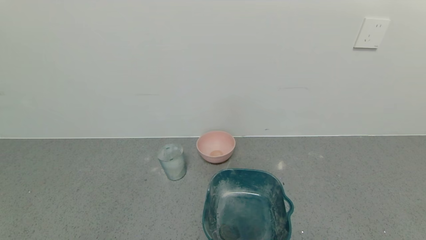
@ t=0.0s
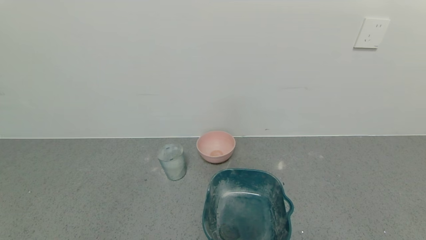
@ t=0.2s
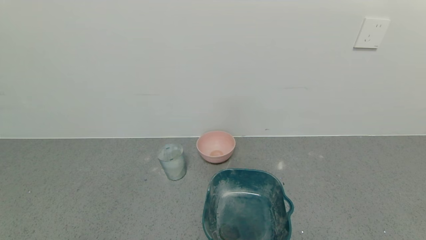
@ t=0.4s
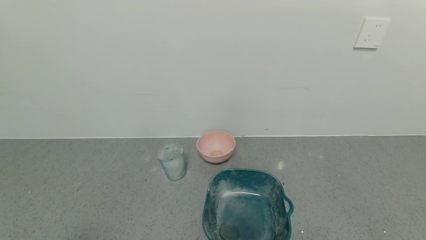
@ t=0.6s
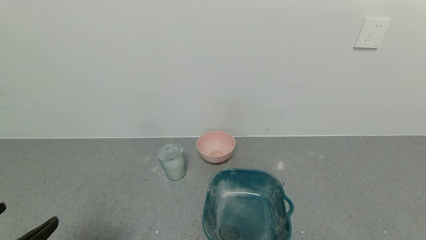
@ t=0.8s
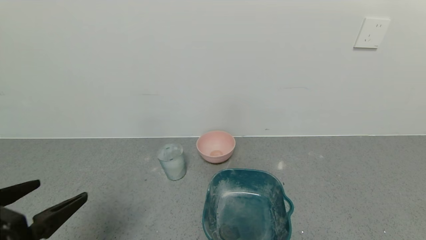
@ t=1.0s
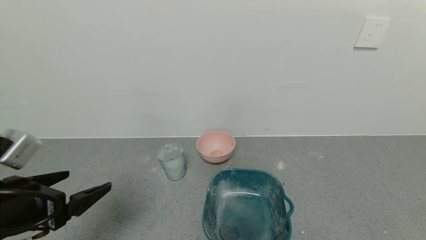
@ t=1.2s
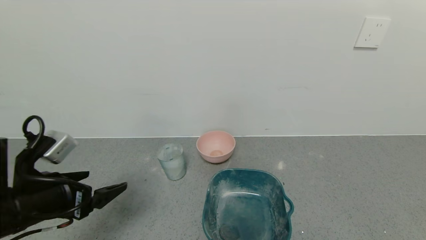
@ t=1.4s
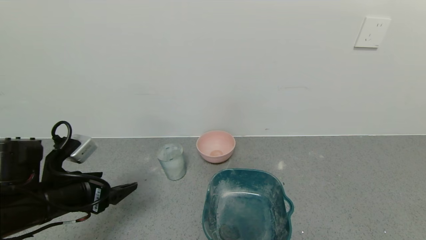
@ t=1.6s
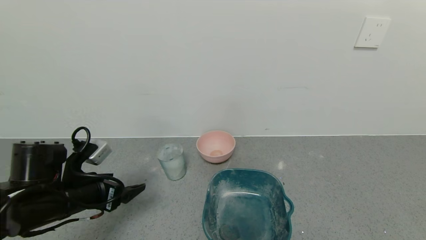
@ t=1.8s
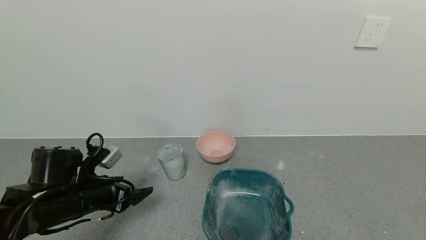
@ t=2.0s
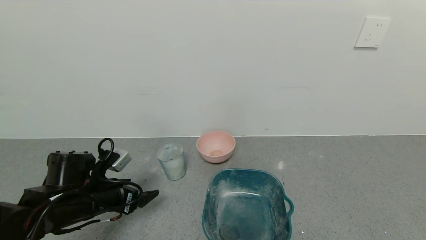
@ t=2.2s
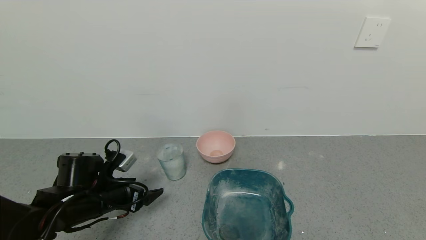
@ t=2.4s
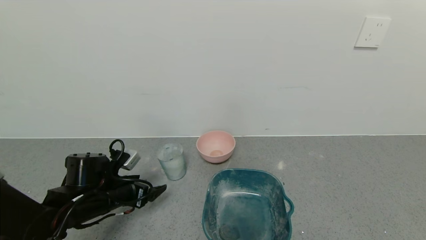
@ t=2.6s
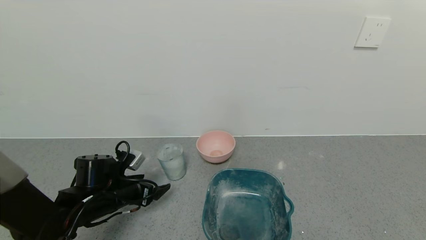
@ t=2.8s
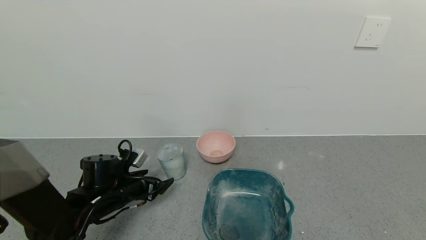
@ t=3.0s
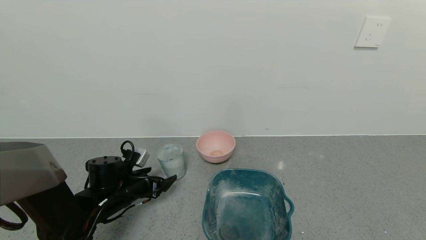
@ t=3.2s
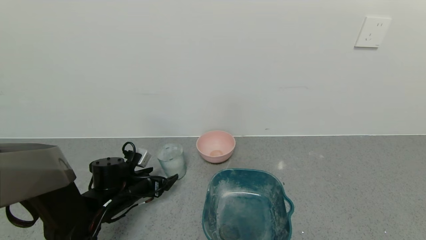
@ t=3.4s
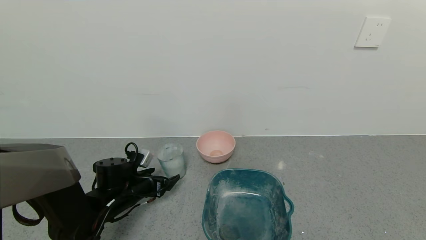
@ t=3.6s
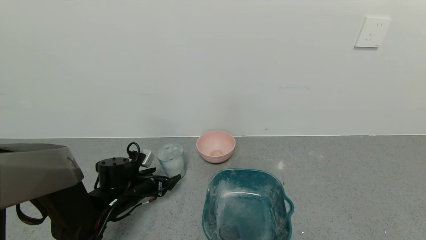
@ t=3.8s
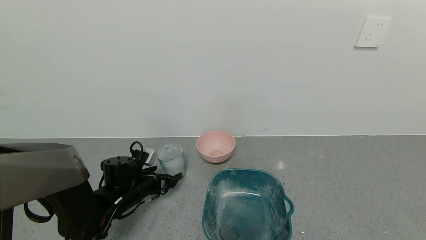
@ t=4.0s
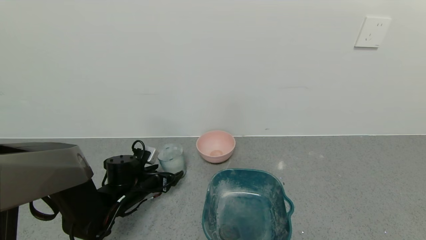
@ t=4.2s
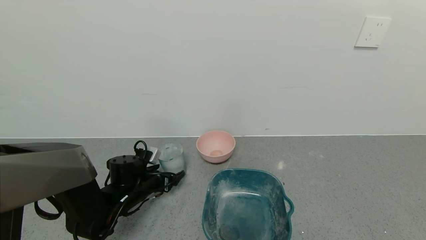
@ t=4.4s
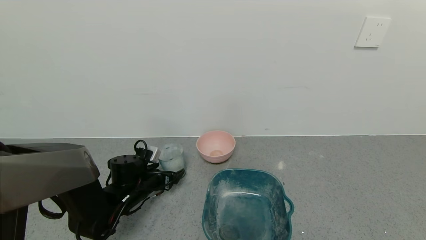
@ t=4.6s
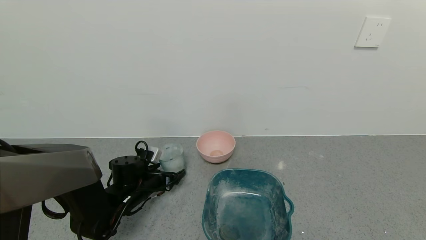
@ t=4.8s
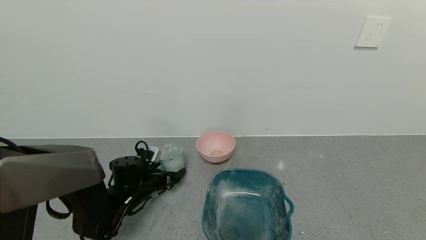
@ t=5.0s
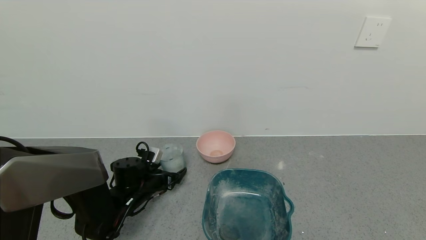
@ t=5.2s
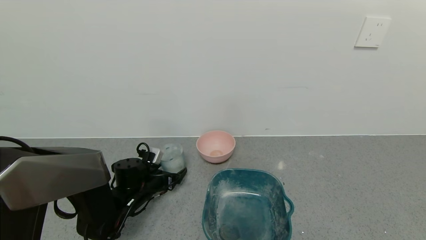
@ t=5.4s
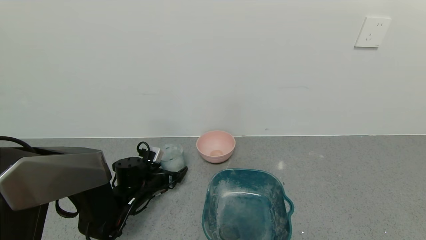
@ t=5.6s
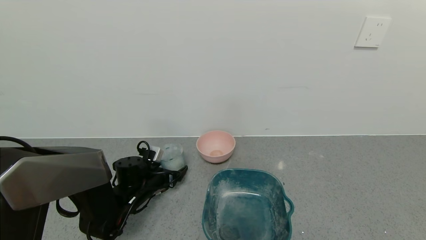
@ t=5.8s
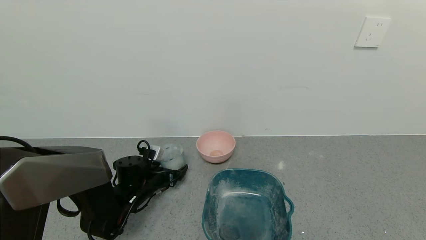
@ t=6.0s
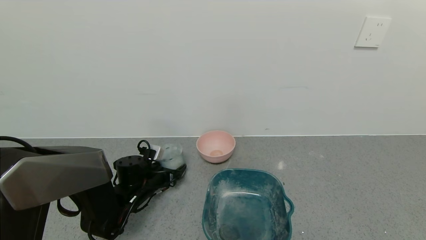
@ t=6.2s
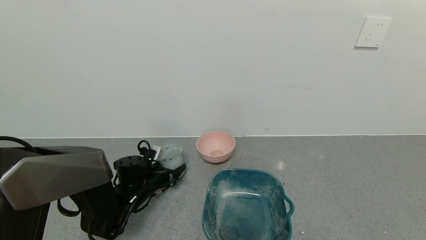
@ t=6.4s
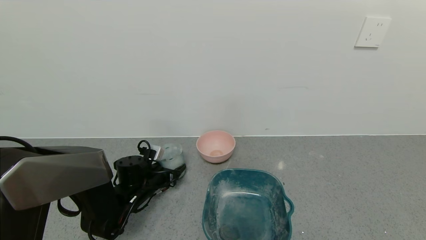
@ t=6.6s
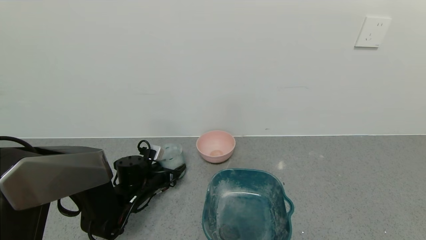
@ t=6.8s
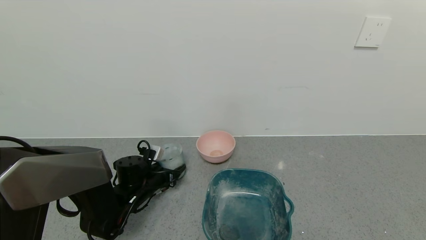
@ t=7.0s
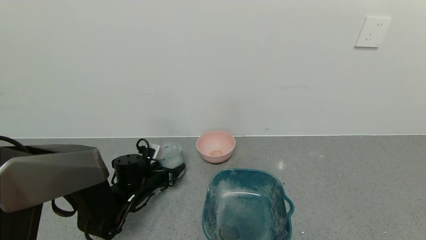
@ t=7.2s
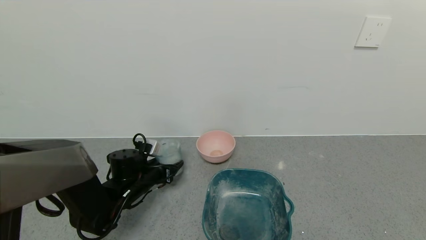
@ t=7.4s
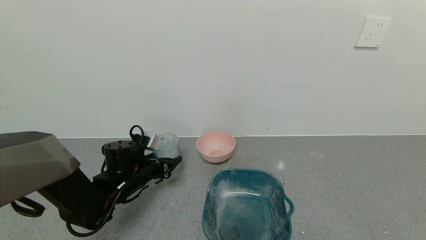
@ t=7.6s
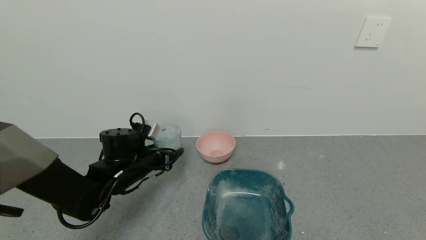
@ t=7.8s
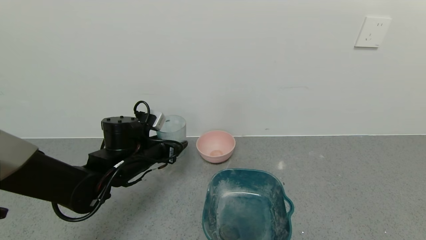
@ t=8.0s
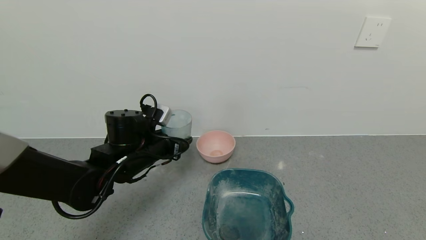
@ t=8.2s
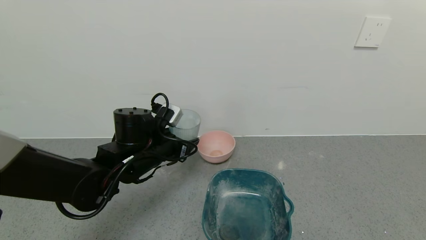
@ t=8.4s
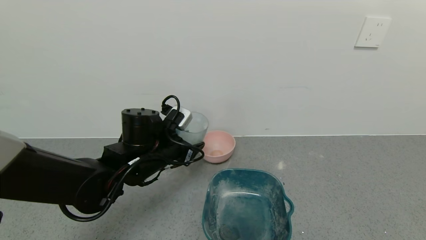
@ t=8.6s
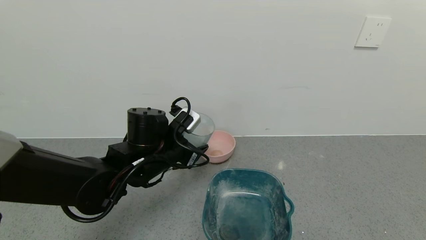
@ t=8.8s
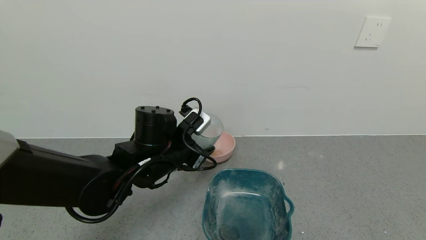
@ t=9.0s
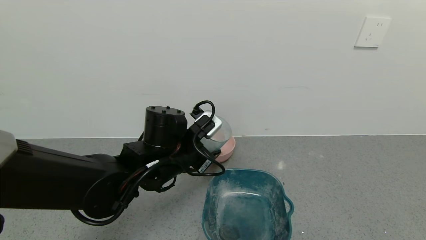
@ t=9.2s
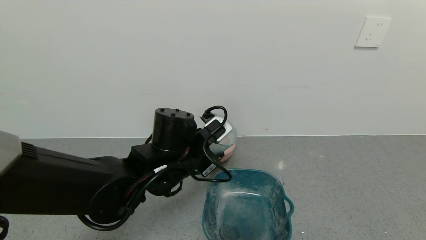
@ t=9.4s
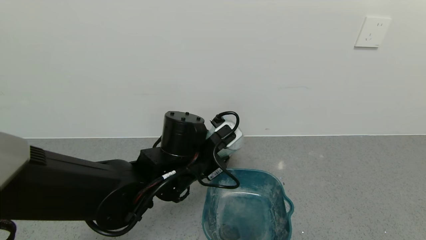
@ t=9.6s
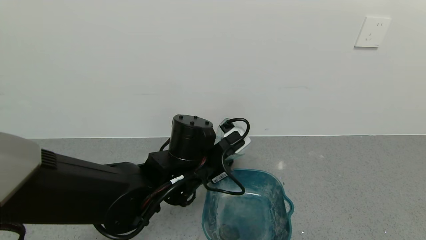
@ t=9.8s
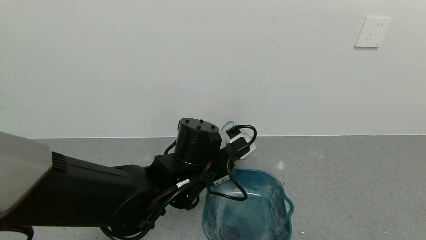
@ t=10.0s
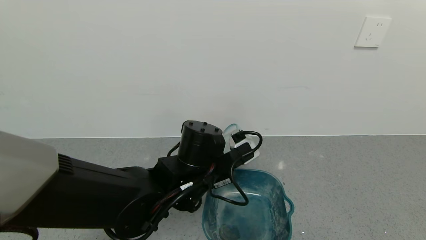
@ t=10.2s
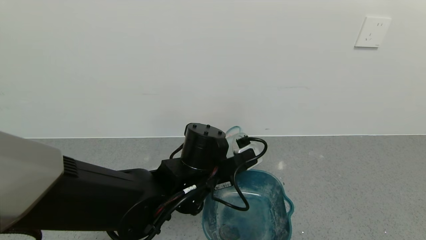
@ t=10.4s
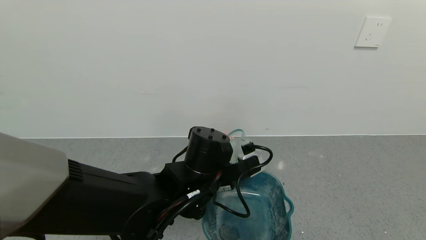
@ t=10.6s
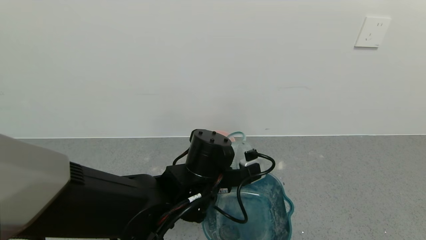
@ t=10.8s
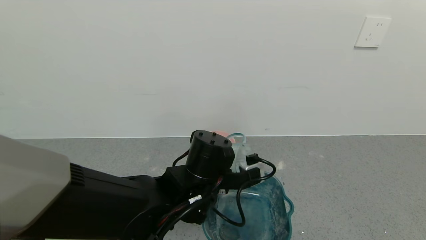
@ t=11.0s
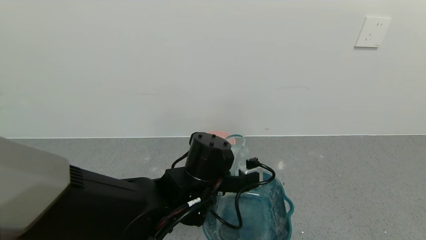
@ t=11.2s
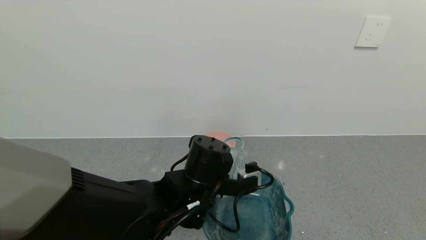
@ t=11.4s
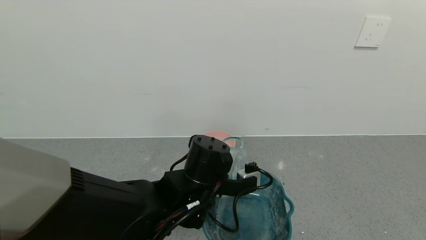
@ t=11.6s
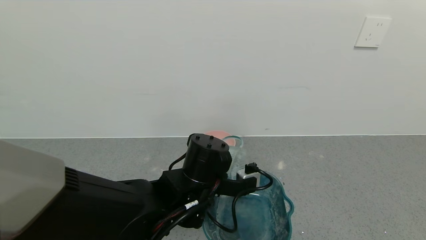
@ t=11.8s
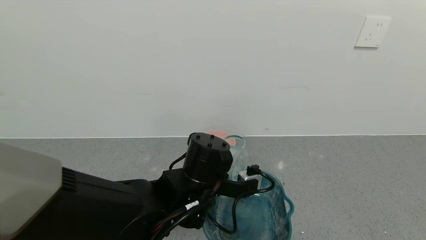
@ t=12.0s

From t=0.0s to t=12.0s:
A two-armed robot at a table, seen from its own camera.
Task of the whole recording: use a gripper to pick up the cup and pour the powder into a bowl or tray.
Step, from t=0.0s to t=6.2s: Pick up blue cup filled with milk powder with left gripper.
From t=0.0s to t=1.6s: The left gripper heads forward, covering roughly 25 cm.
From t=1.6s to t=3.0s: The left gripper is displaced downward and forward by approximately 15 cm.
From t=3.0s to t=4.4s: The left gripper ends up approximately 5 cm from where it was.
From t=4.4s to t=6.0s: The grippers move only a little.
From t=6.0s to t=7.6s: The left gripper goes about 5 cm upward, and closes.
From t=7.6s to t=9.0s: The left gripper heads to the right and upward, covering roughly 15 cm.
From t=9.0s to t=10.4s: The left gripper moves to the right, about 5 cm.

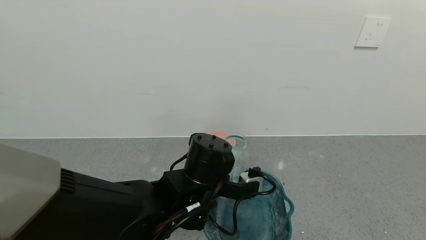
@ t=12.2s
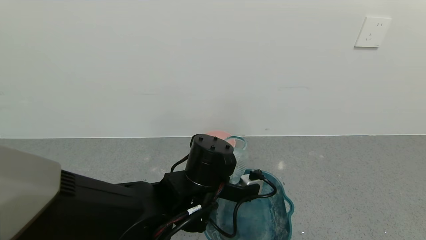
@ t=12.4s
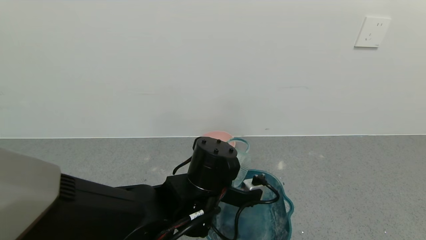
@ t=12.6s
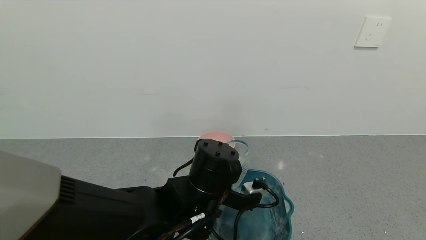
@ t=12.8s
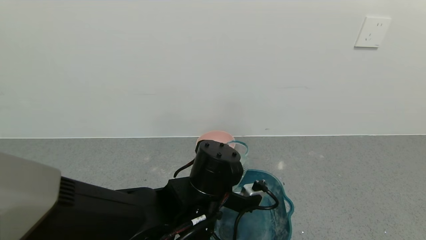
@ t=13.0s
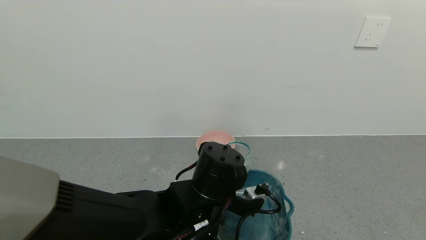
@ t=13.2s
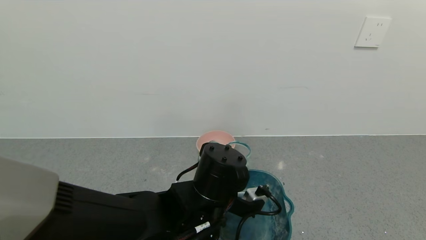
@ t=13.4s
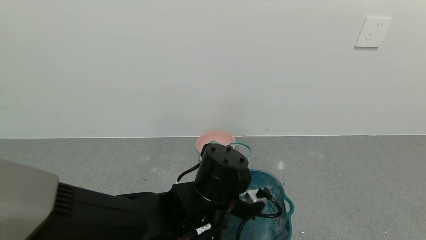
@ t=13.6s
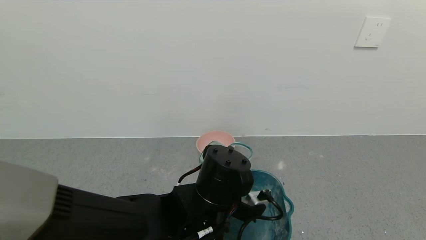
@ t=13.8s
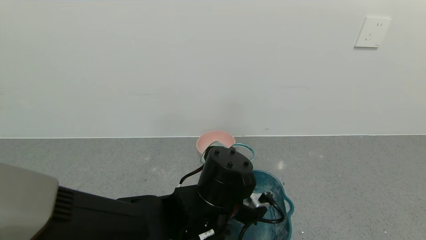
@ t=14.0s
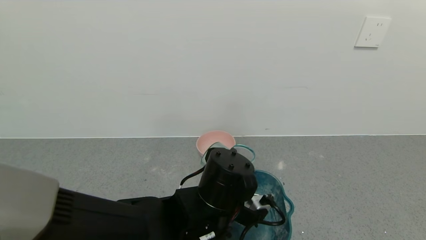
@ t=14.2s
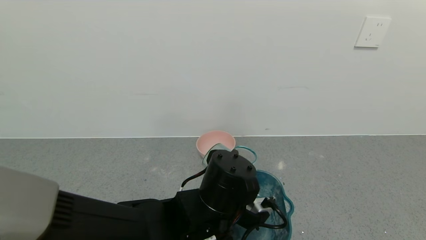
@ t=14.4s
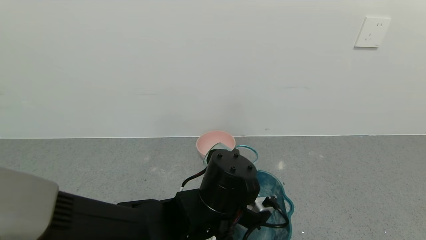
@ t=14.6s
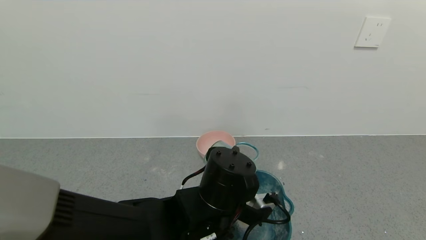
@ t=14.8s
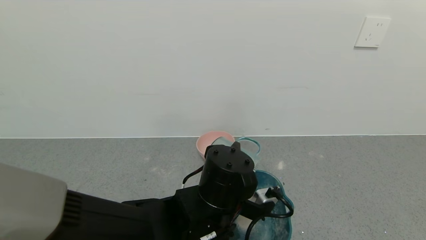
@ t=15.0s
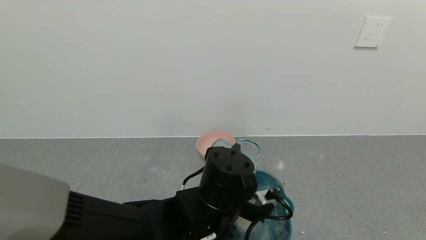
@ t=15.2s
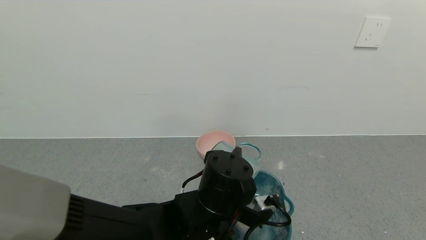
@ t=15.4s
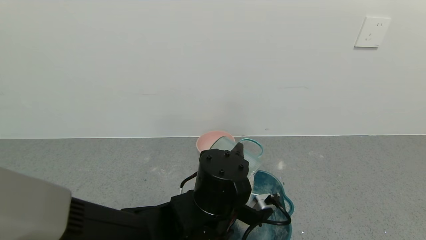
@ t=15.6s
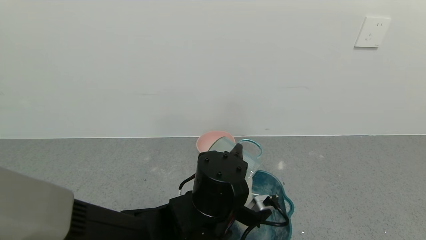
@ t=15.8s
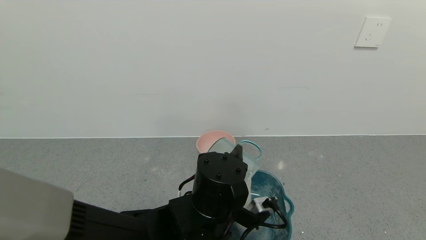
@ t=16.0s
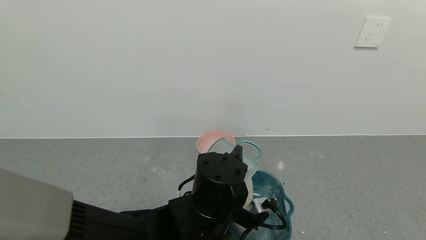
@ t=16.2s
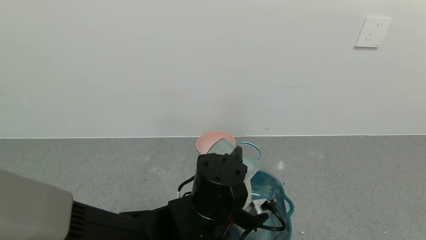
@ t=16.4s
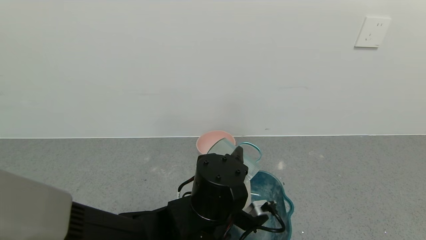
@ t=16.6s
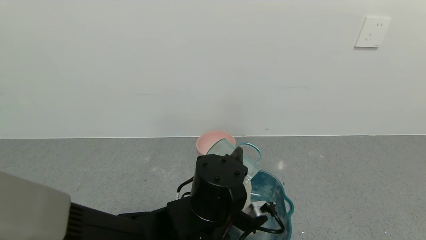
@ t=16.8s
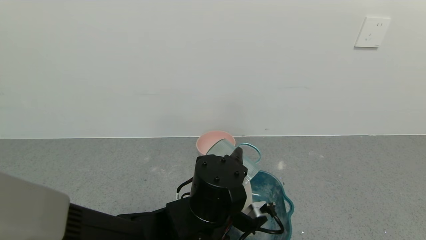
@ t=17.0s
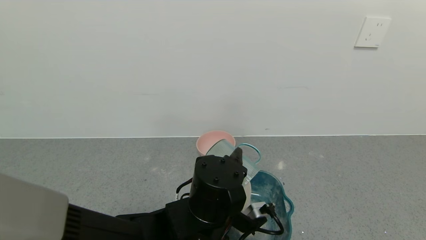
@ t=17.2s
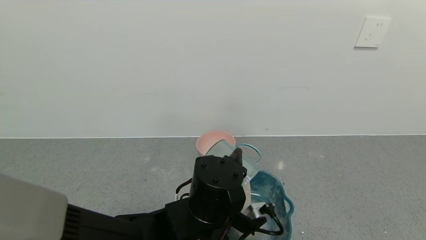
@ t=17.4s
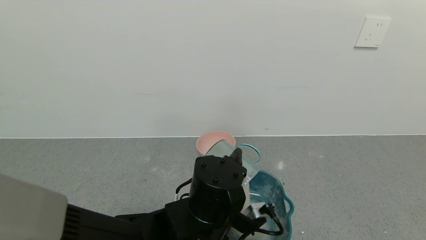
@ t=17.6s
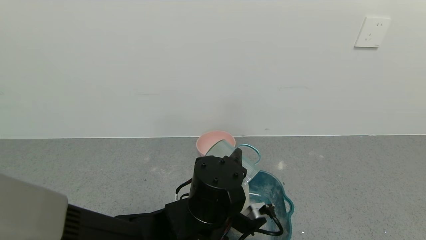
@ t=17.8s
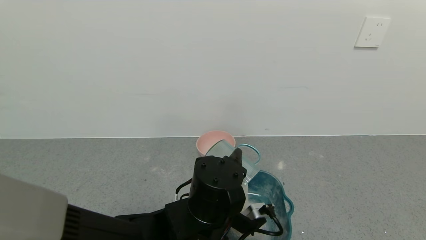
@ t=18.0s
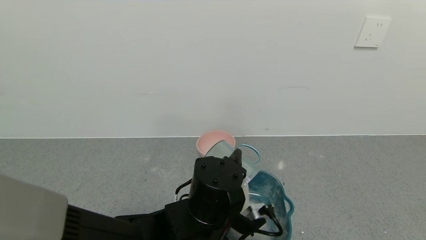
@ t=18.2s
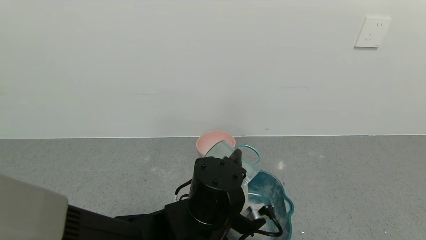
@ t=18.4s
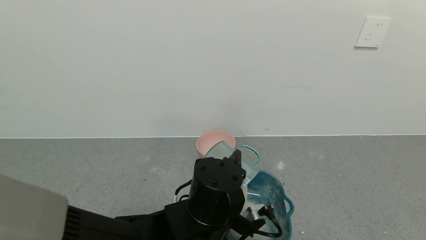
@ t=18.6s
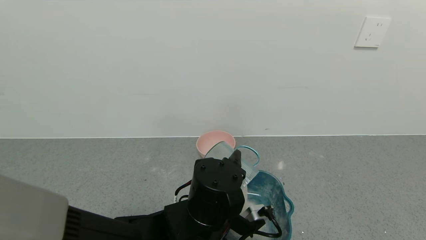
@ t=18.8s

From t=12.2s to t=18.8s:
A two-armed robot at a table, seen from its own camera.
Task of the whole recording: use a gripper to pick up the cup and pour the powder into a bowl or tray.
From t=12.2s to t=13.8s: The grippers stay close to where they were, moving slightly.
From t=13.8s to t=17.2s: The grippers move only a little.
From t=17.2s to t=18.8s: Both grippers stay about where they are.
